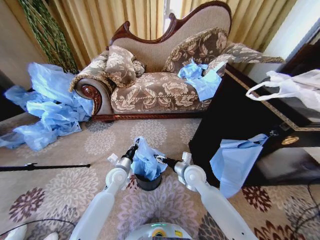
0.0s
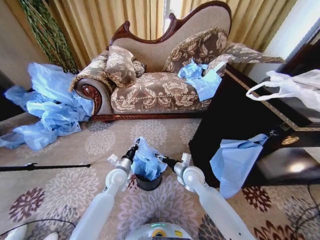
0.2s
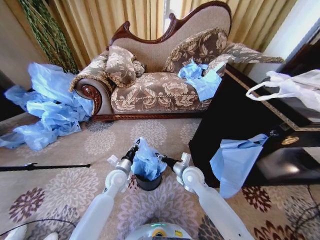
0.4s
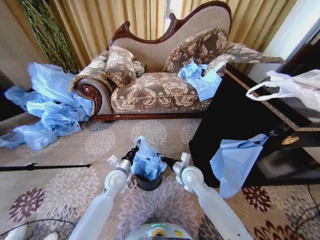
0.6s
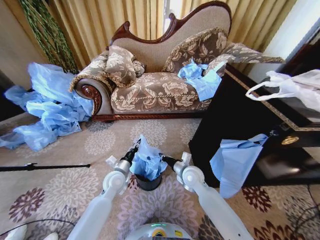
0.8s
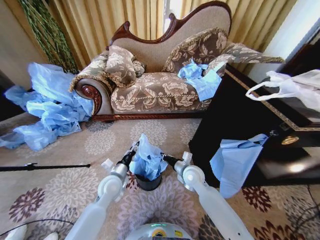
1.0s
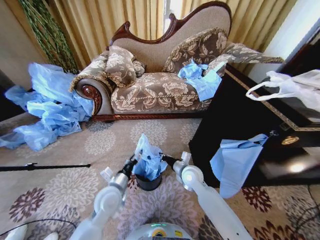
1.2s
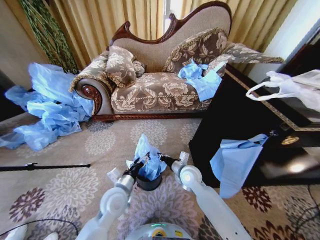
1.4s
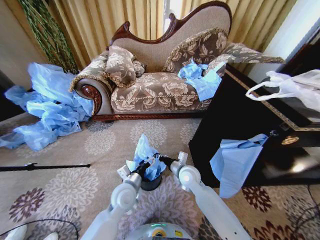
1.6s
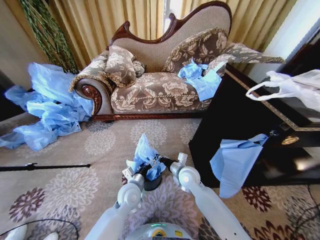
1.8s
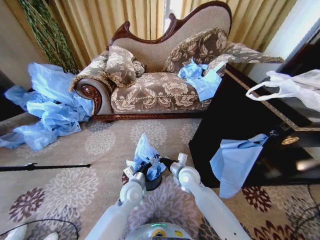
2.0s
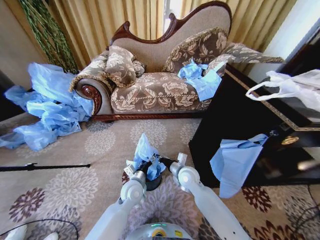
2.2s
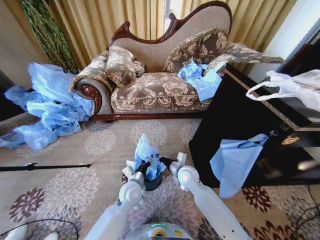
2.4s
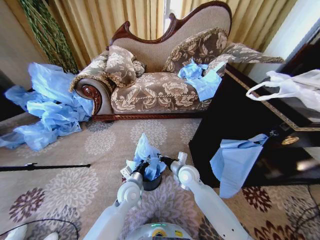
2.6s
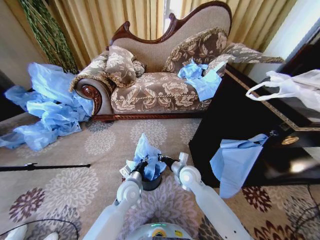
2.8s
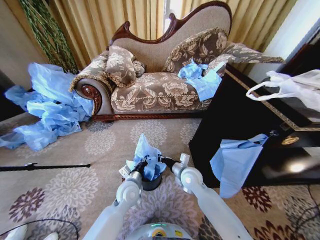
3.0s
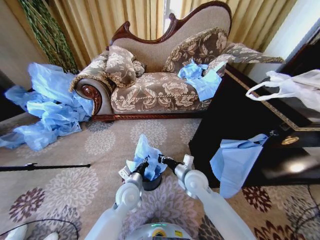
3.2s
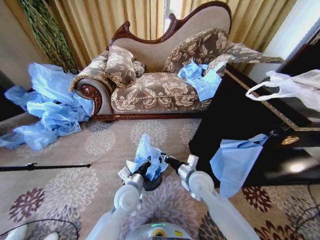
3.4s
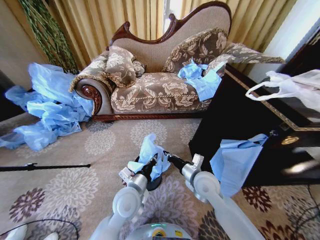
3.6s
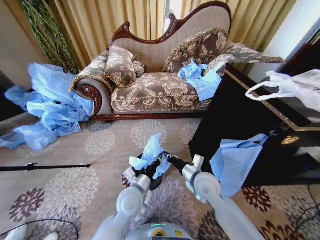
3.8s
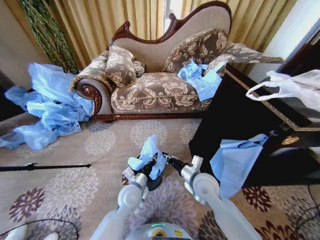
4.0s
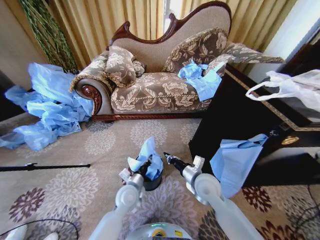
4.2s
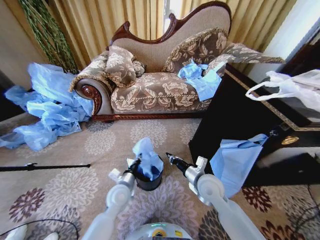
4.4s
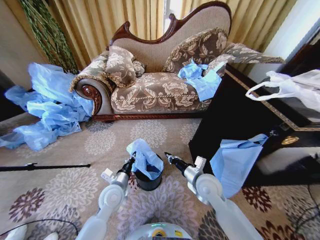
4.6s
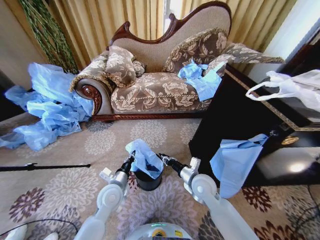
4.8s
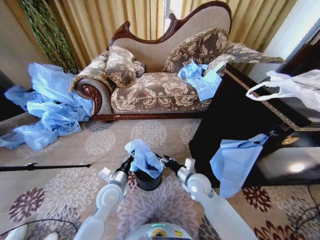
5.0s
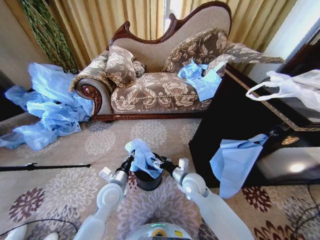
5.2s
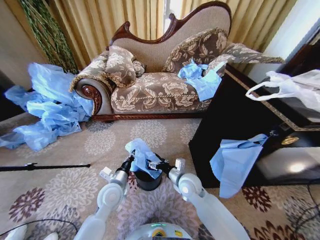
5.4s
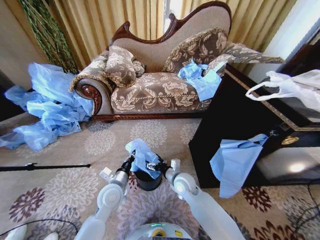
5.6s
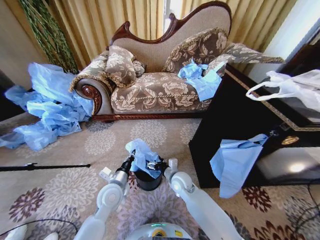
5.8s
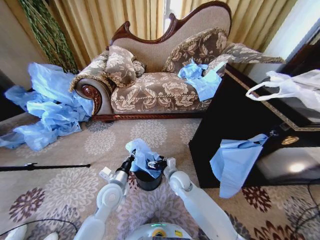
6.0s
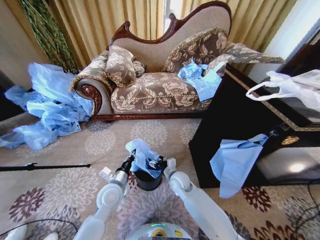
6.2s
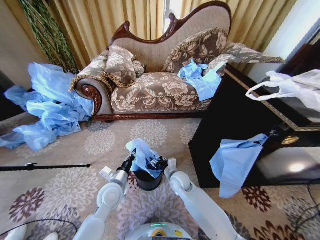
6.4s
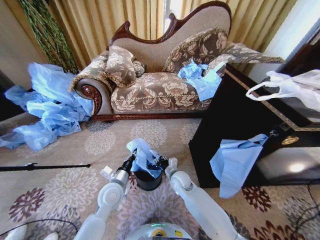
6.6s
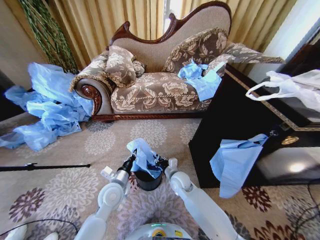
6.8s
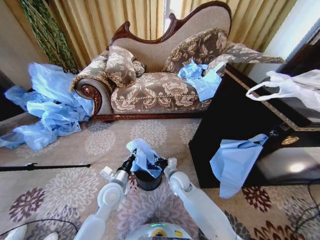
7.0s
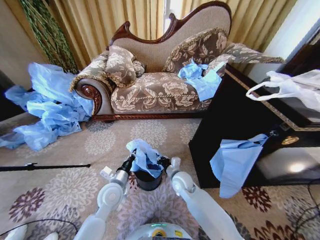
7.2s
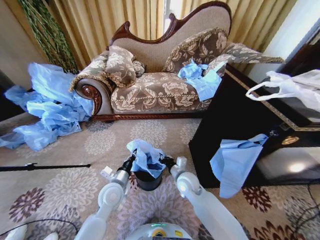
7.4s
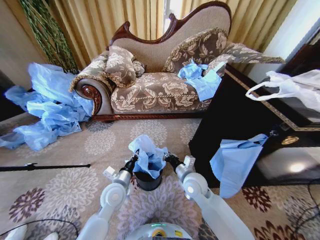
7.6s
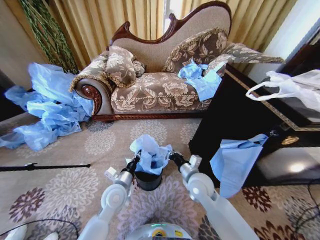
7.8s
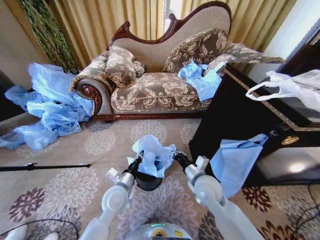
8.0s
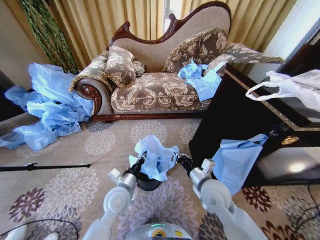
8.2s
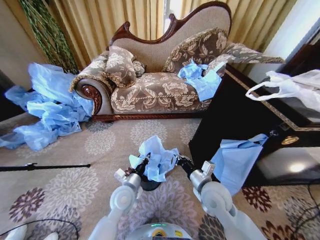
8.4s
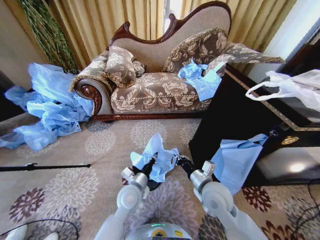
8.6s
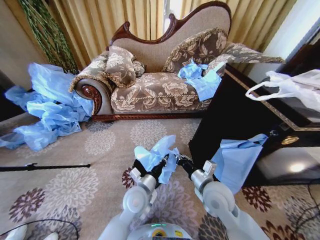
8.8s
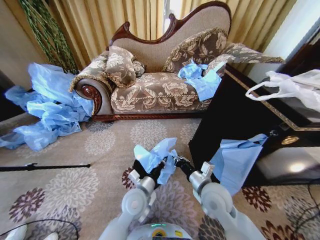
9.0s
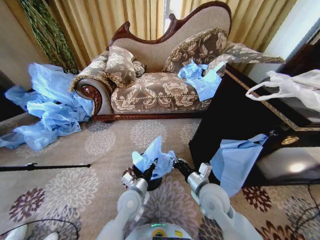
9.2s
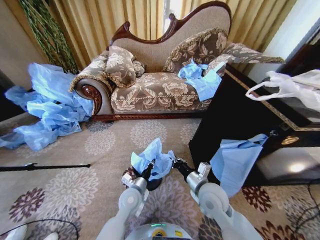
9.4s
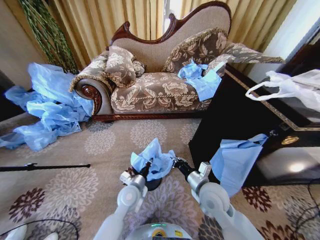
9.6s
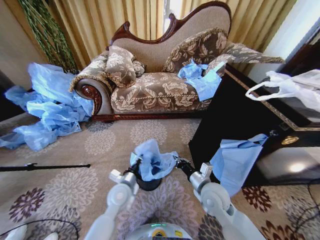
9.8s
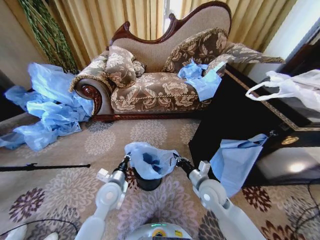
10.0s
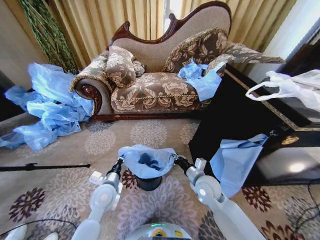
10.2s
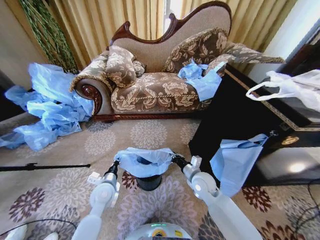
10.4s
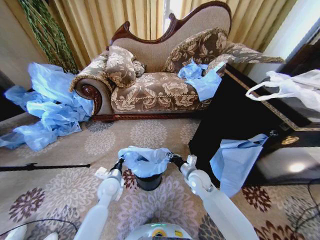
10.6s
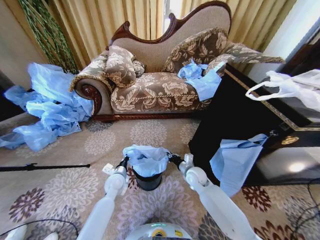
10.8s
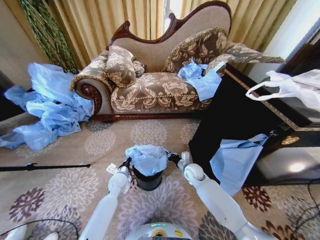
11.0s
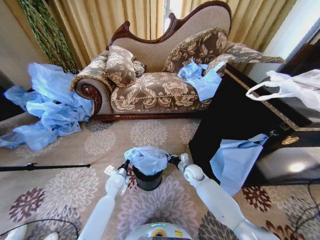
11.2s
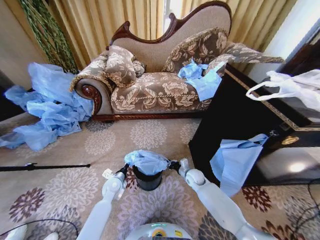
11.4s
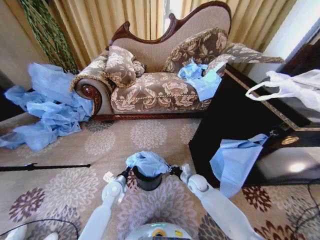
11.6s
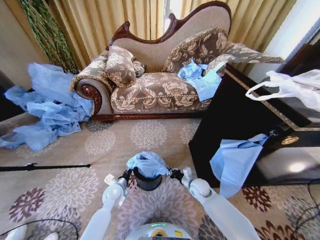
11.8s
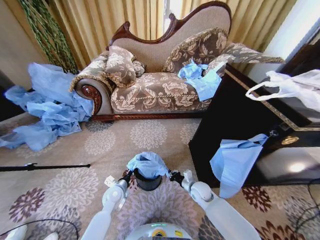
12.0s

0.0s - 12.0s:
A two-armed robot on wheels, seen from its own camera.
Task of the whole recording: Place a garbage bag over the trash bin.
0.0s - 1.6s: The left gripper heads backward and to the right, covering roughly 10 cm, and opens; the right gripper closes its fingers.
1.6s - 3.0s: The left gripper closes.
3.0s - 4.4s: The left gripper goes upward and returns, about 5 cm each way, while the right gripper heads to the right and backward, covering roughly 5 cm.
4.4s - 6.0s: The right gripper shifts about 15 cm to the left, downward and forward, and opens up.
6.0s - 7.6s: The right gripper moves upward, some 5 cm, and closes its fingers.
7.6s - 9.0s: The right gripper is displaced backward by some 5 cm. Meanwhile the left gripper is displaced to the right by some 10 cm.
9.0s - 10.4s: The left gripper travels to the left by some 15 cm; the right gripper travels forward and downward by approximately 10 cm.
10.4s - 12.0s: The right gripper is displaced downward by approximately 10 cm. Meanwhile the left gripper goes roughly 10 cm downward.

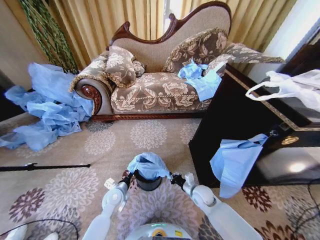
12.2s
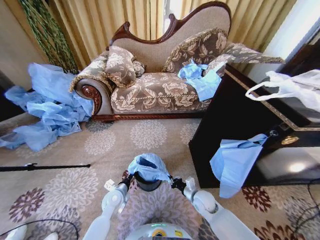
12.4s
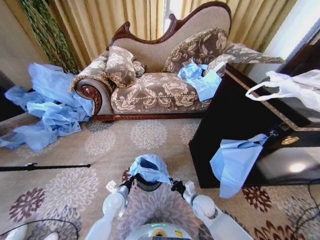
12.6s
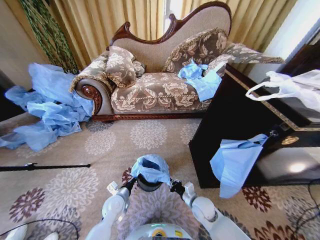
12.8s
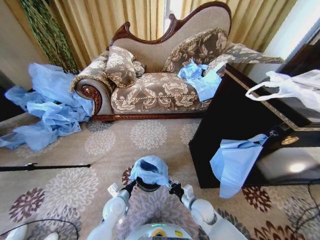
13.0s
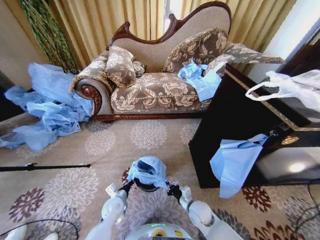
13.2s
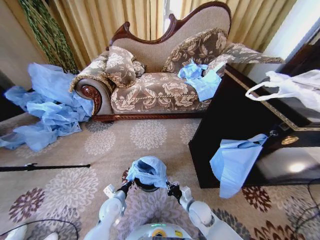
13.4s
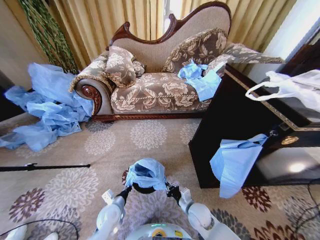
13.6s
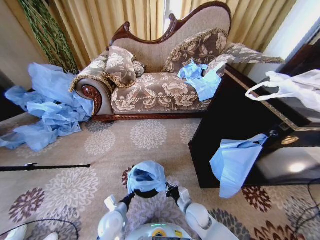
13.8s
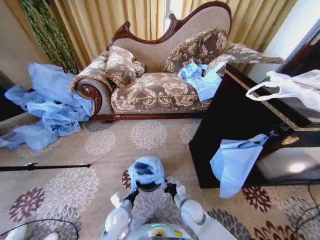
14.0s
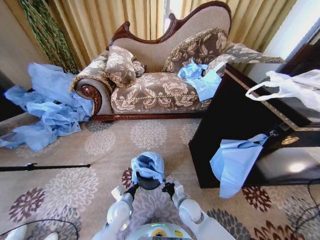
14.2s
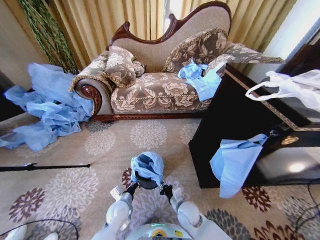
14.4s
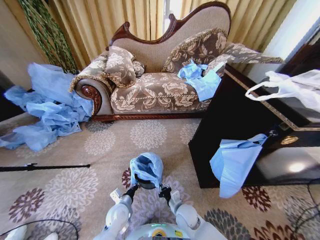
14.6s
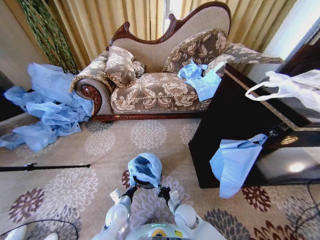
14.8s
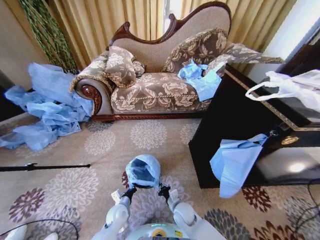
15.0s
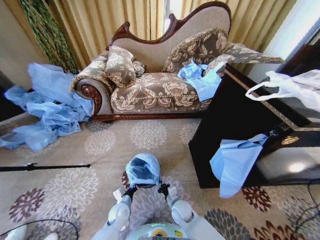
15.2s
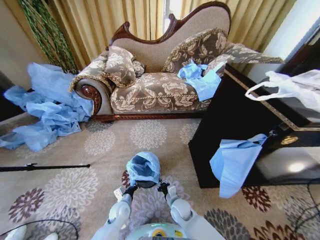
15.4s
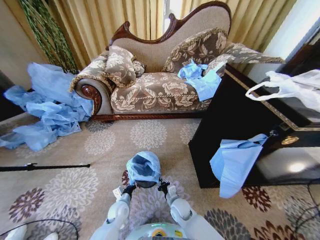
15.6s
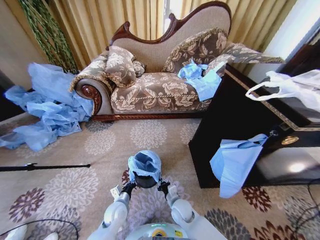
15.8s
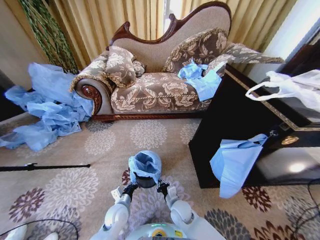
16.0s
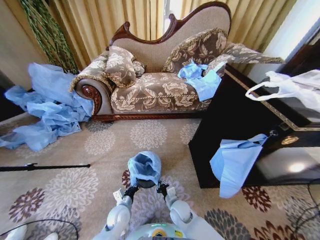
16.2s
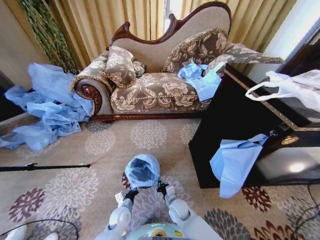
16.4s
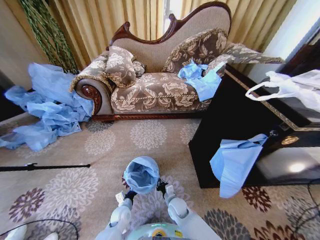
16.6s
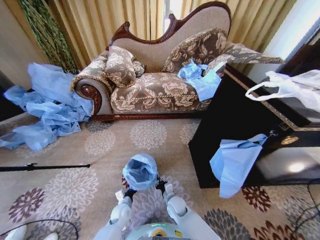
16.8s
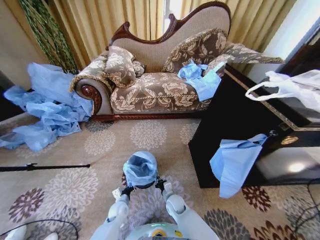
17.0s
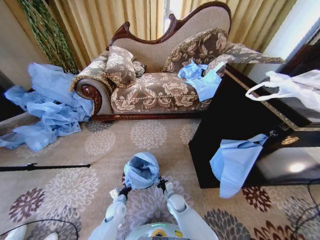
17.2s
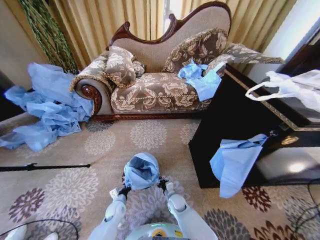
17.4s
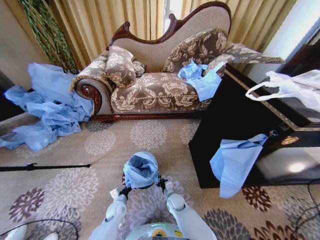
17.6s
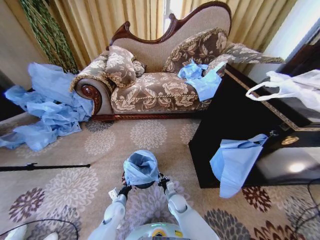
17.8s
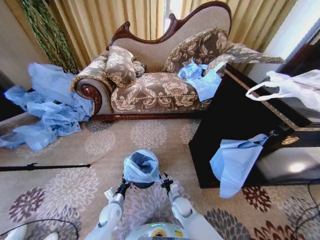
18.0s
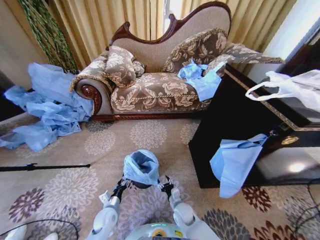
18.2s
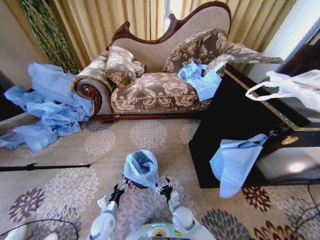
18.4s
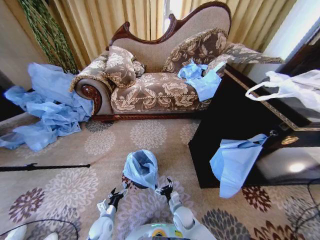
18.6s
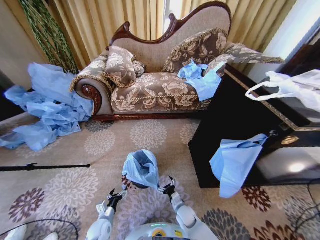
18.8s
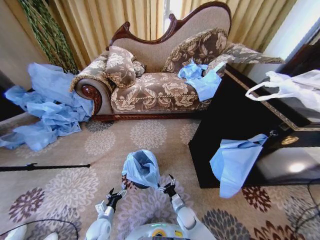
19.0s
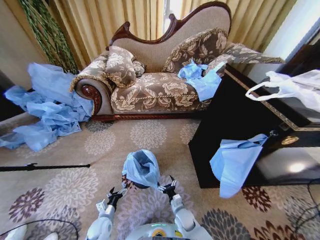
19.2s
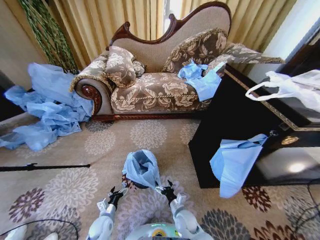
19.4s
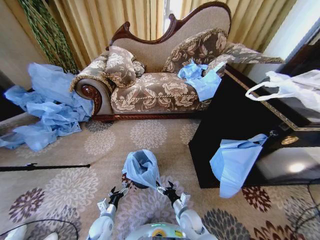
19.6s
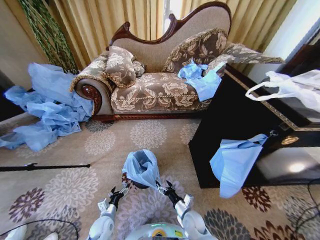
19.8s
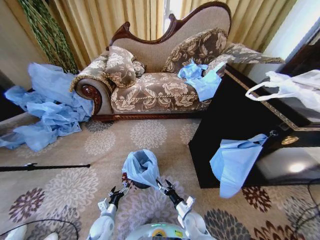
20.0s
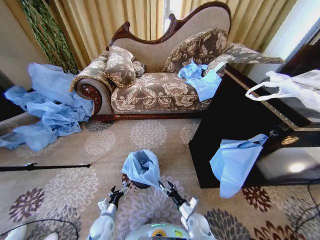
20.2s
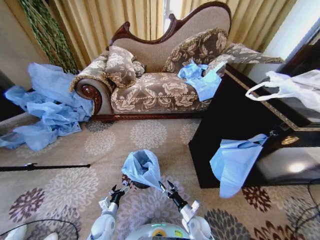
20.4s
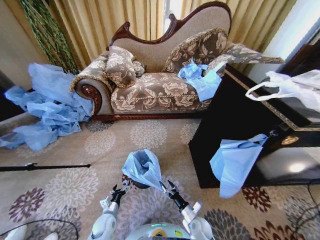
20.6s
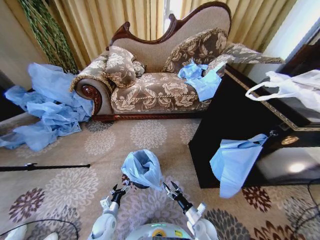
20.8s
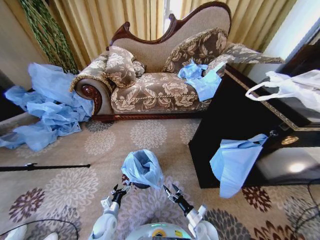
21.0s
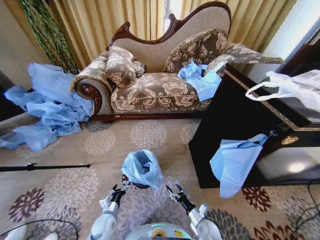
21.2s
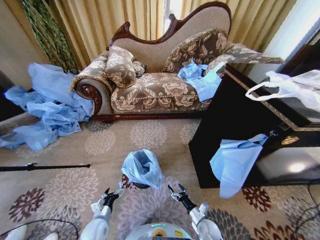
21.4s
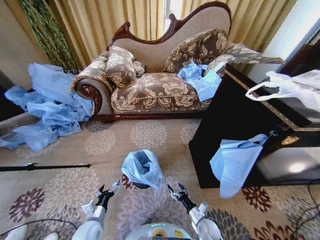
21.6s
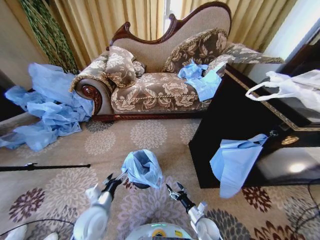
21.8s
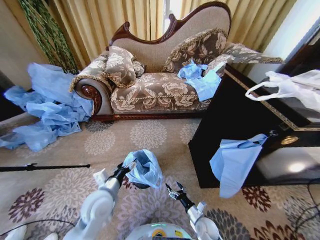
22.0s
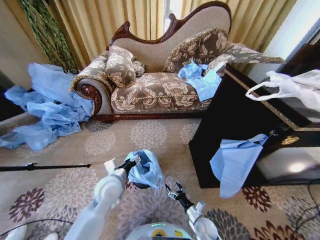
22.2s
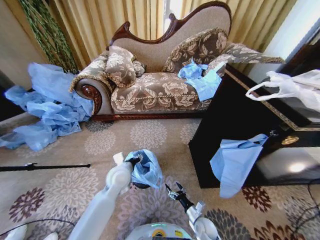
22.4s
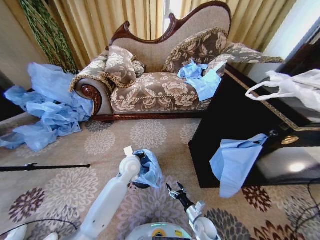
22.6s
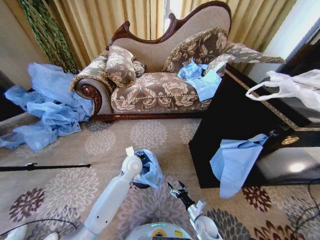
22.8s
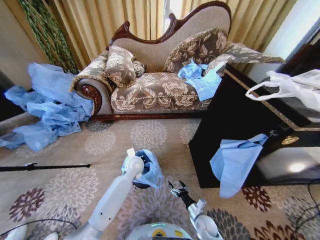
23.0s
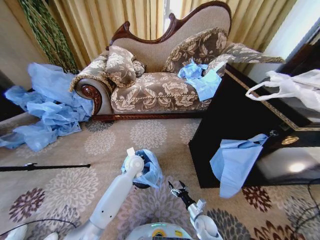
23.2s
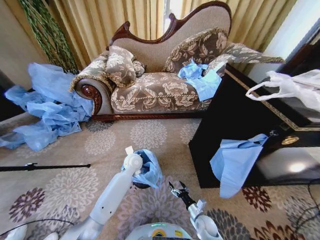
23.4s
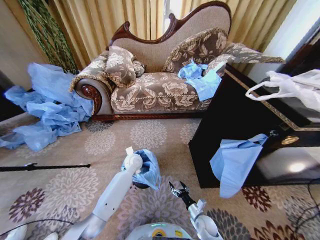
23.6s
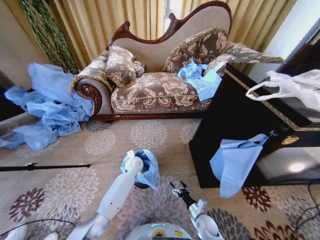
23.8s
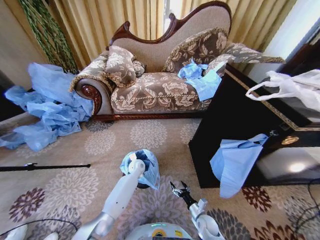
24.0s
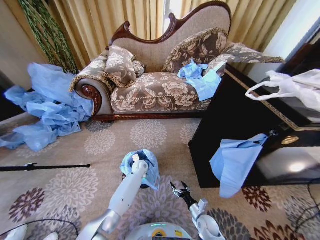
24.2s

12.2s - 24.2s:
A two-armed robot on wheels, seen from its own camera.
Task of the whole recording: Place a garbage bag over the trash bin.
12.2s - 13.8s: Both grippers move backward, about 10 cm.
13.8s - 15.2s: The left gripper goes some 5 cm downward, while the right gripper heads to the left, covering some 5 cm.
15.2s - 16.6s: The left gripper moves about 5 cm upward and comes back.
16.6s - 18.2s: The left gripper travels to the left by roughly 5 cm, and opens its fingers. The right gripper opens up.
18.2s - 19.8s: The right gripper shifts by about 5 cm, and opens; the left gripper changes place by some 5 cm, and opens up.
19.8s - 21.2s: The right gripper is displaced to the right by about 10 cm.
21.2s - 22.6s: The left gripper goes about 30 cm upward, forward and to the right, and closes its fingers.
22.6s - 24.2s: The left gripper goes approximately 15 cm downward and forward, and closes up.
